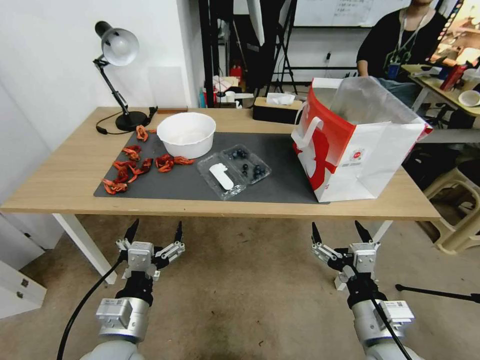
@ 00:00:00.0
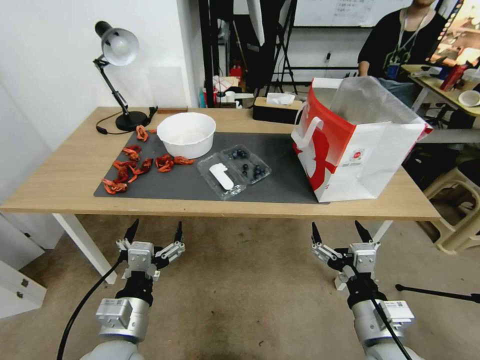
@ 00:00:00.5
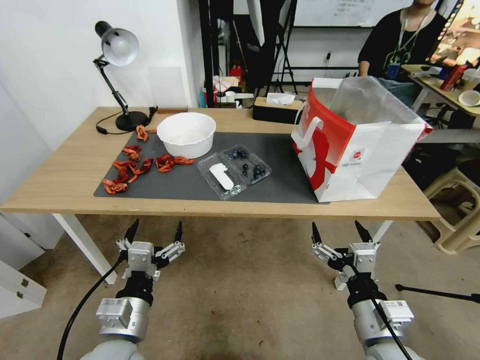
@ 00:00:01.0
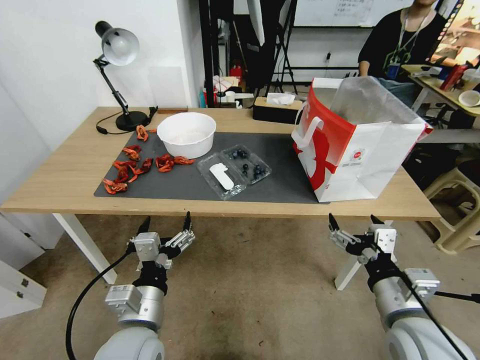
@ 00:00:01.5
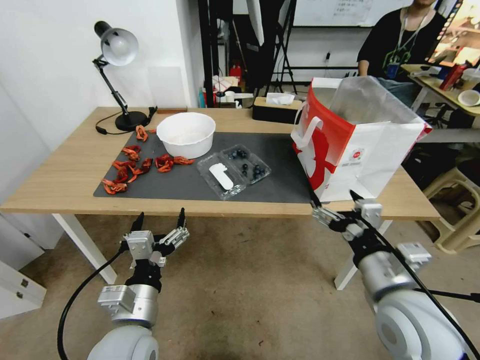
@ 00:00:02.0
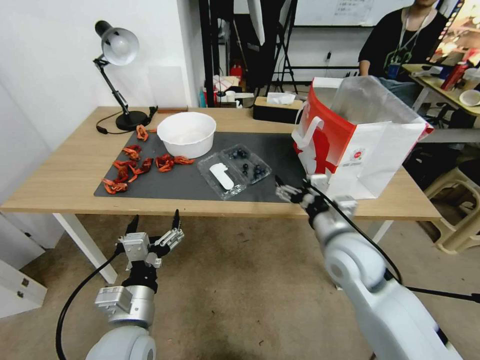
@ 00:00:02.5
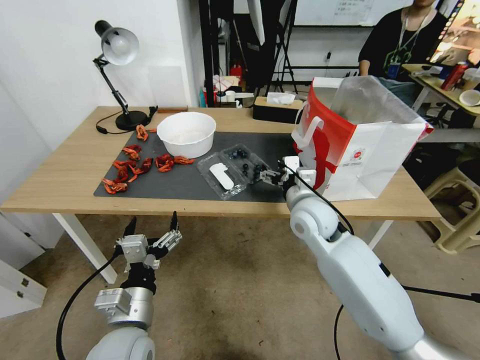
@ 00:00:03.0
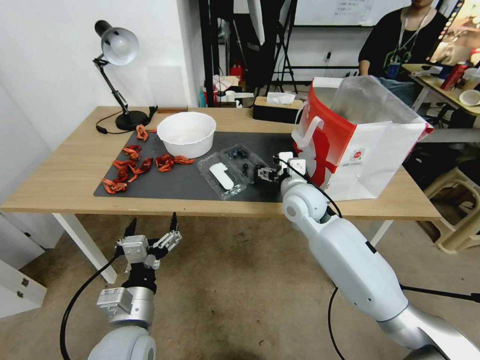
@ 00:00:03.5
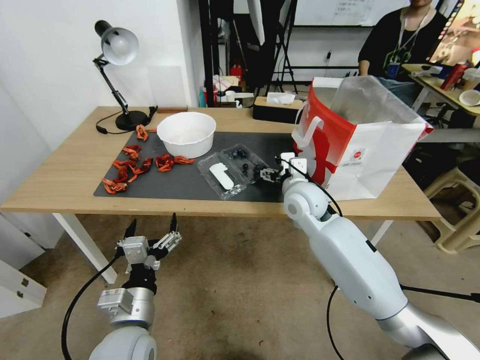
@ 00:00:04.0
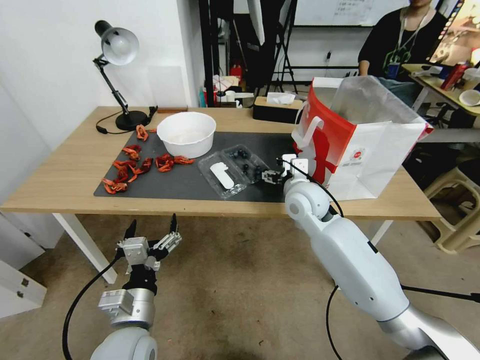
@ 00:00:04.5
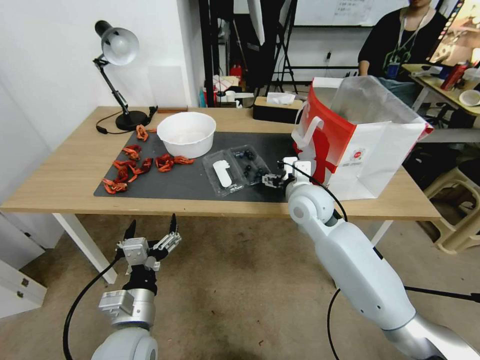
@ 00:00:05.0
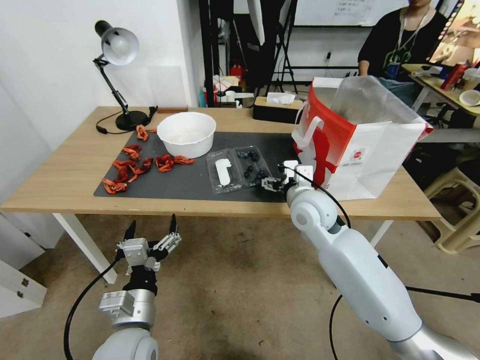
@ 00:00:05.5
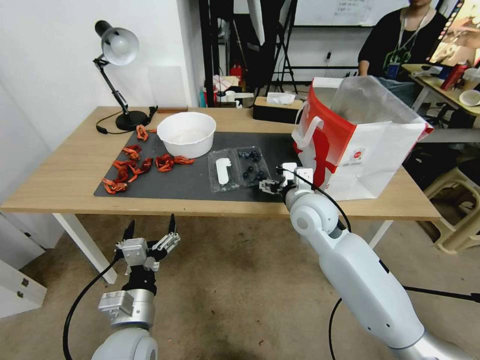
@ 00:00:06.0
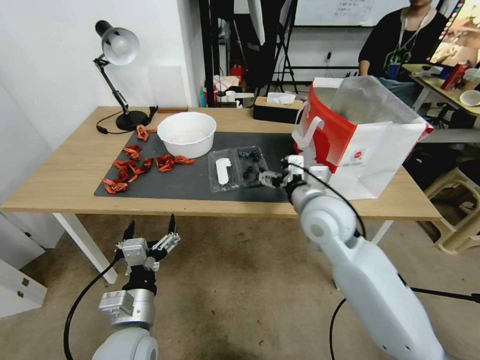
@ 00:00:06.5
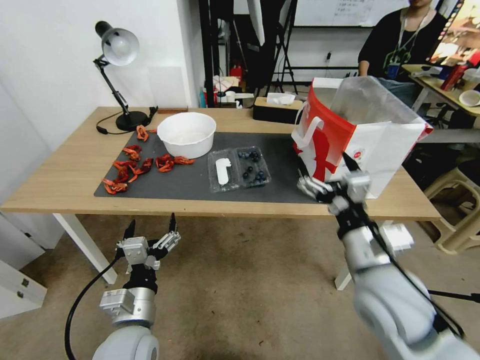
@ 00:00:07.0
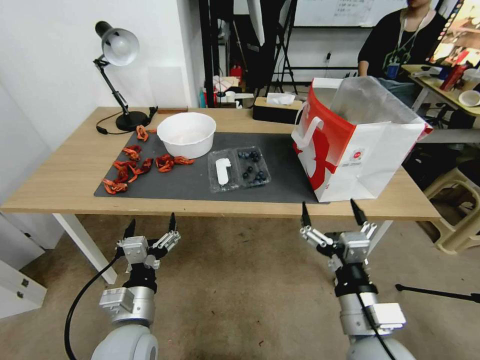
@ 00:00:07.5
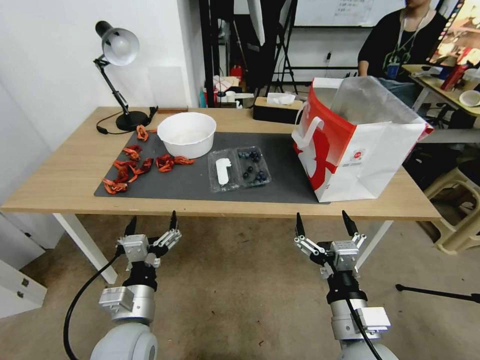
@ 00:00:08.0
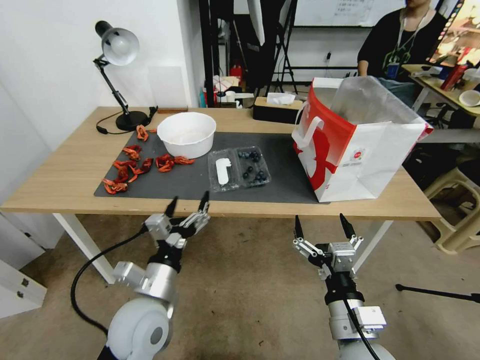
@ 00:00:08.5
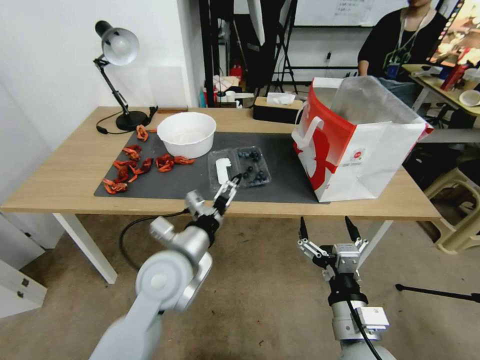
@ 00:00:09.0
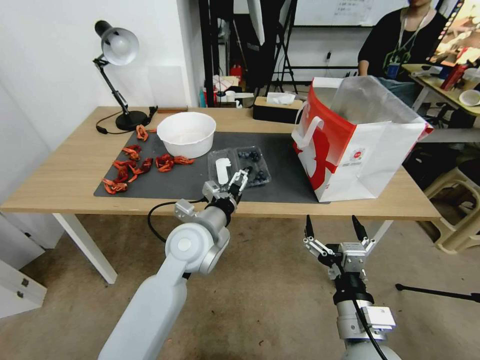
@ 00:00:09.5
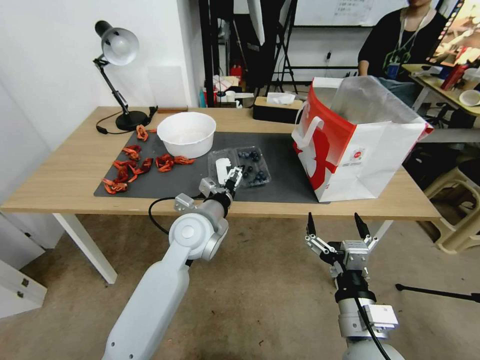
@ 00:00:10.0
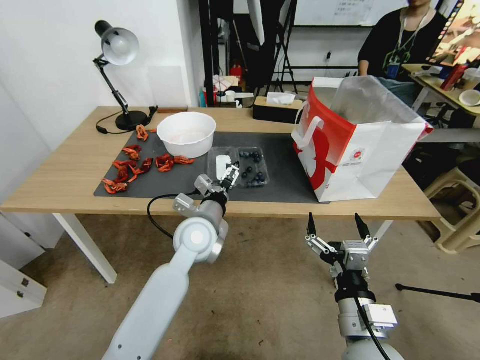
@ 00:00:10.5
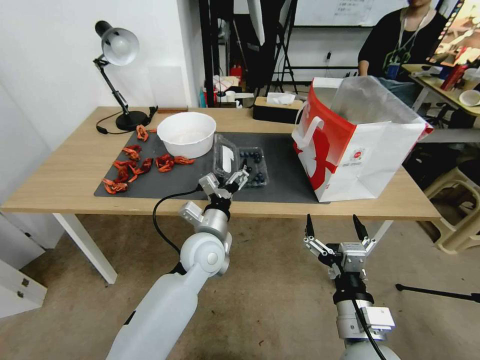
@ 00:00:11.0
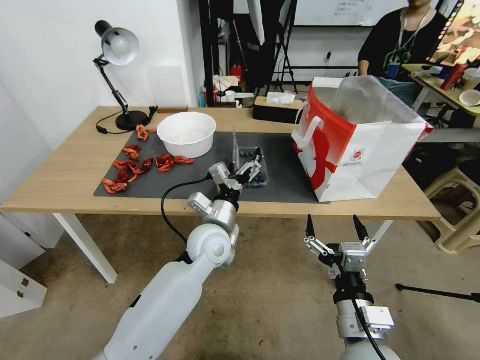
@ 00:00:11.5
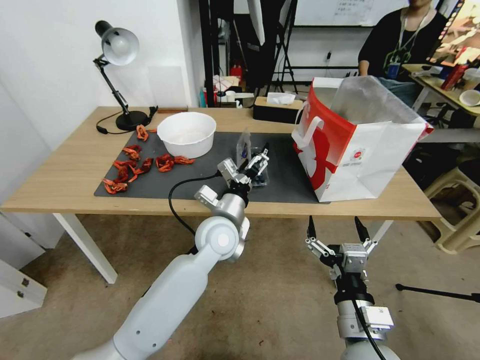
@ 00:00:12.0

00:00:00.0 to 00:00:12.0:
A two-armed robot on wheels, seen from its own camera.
Task of the whole recording: Close the takeout container lid, then place the container into the takeout bag.
00:00:02.0 to 00:00:04.0: The right gripper heads forward and to the left, covering about 25 cm.
00:00:04.0 to 00:00:06.0: The grippers make only small movements.
00:00:06.0 to 00:00:08.0: The right gripper is displaced backward by about 25 cm.
00:00:08.0 to 00:00:10.0: The left gripper heads forward and to the right, covering roughly 20 cm.
00:00:10.0 to 00:00:12.0: The left gripper ends up some 5 cm from where it was.

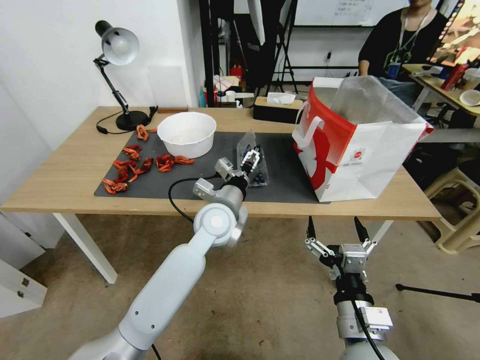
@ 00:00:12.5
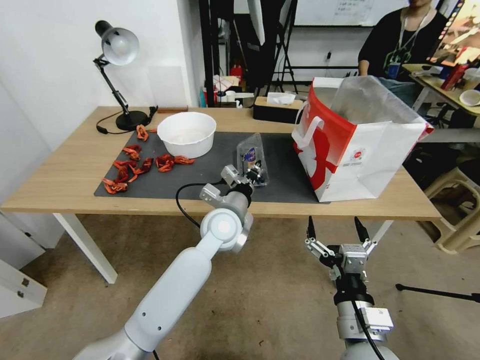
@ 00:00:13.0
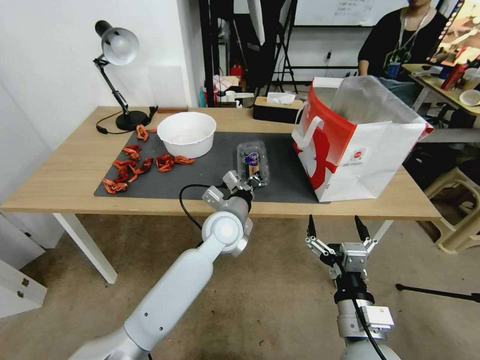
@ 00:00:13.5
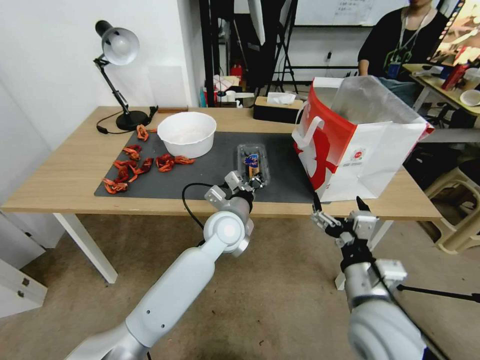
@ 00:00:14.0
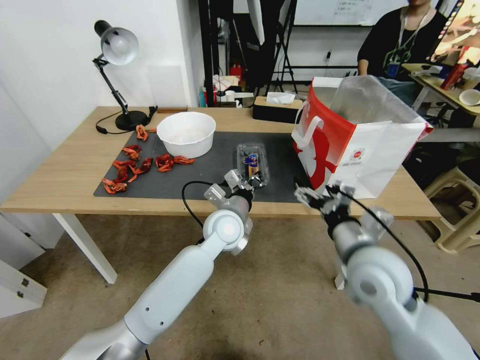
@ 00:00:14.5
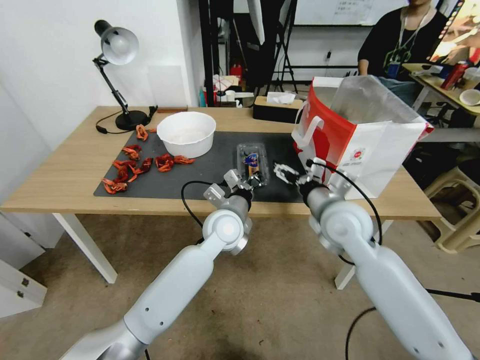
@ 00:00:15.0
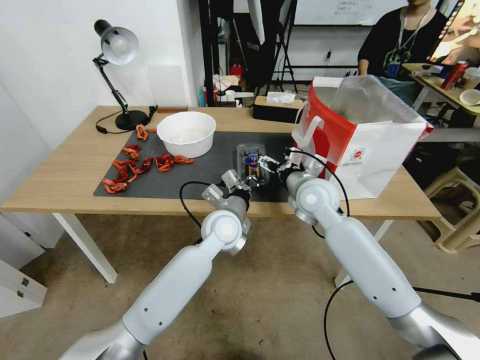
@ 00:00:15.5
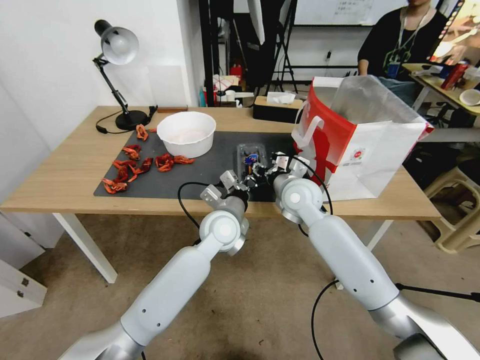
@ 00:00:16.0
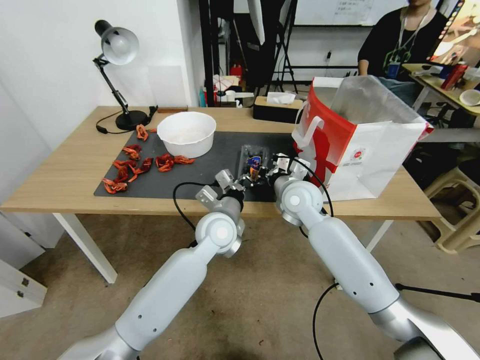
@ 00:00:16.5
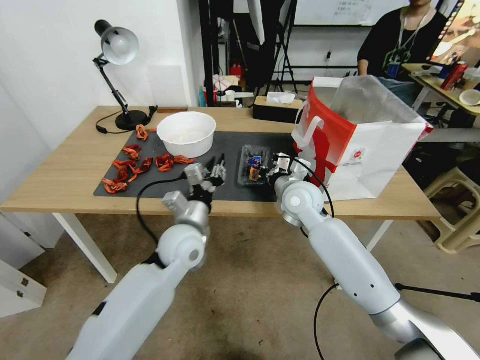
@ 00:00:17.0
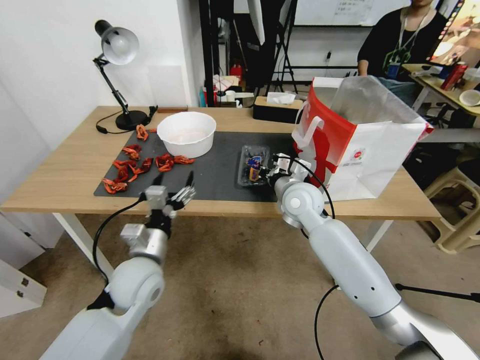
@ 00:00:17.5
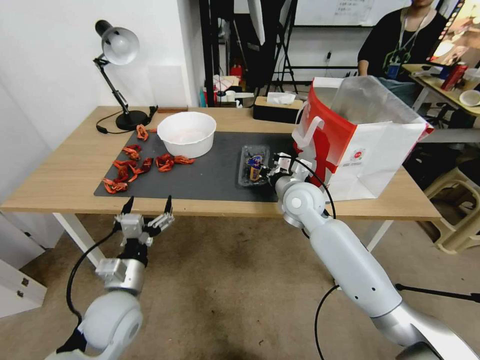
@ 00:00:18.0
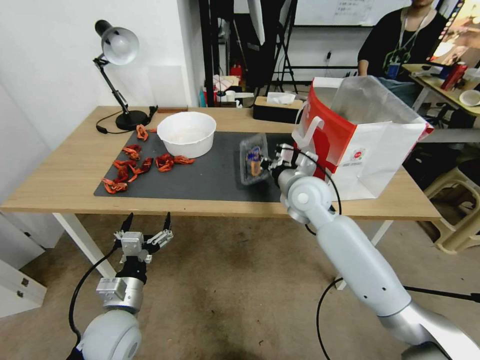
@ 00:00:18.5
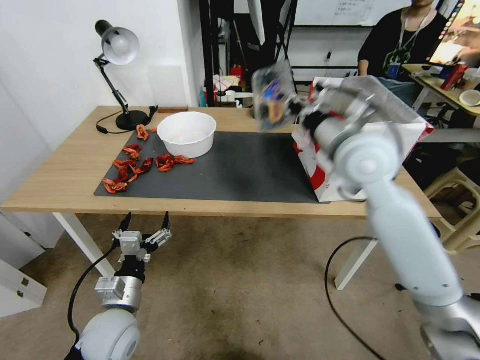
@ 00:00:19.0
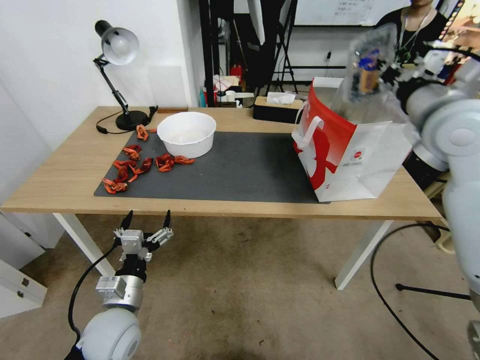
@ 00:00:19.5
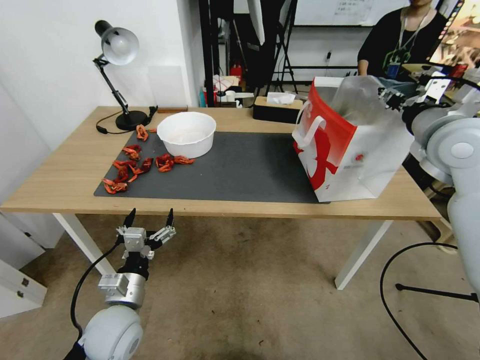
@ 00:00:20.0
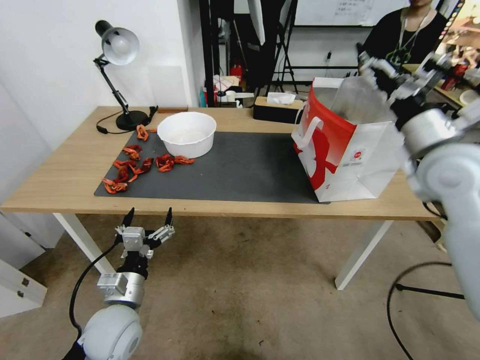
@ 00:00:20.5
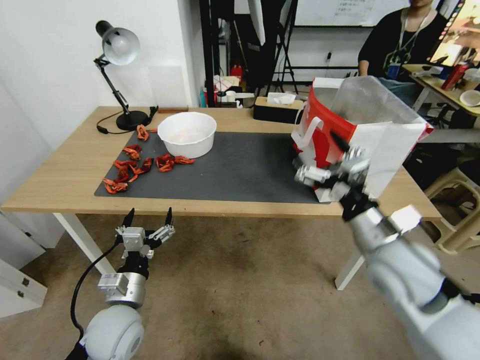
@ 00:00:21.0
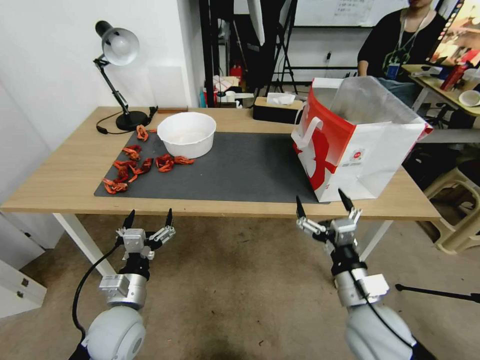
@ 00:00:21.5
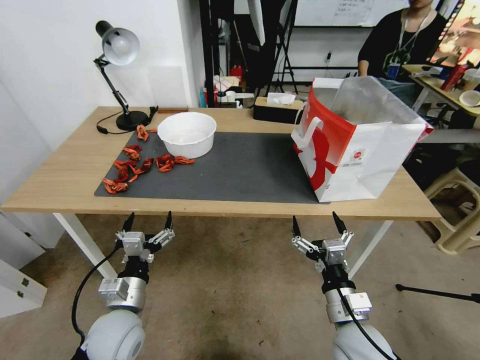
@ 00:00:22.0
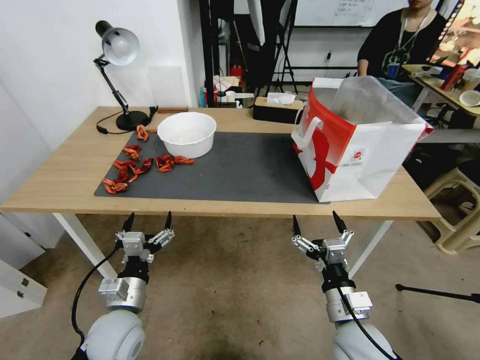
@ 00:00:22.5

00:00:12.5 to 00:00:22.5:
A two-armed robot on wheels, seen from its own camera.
Task of the whole recording: Close the takeout container lid, then place the container into the takeout bag.
00:00:12.5 to 00:00:14.5: The right gripper moves forward and upward, some 15 cm. Meanwhile the left gripper closes up.
00:00:14.5 to 00:00:16.5: The right gripper shifts approximately 20 cm forward and to the left, and closes.
00:00:16.5 to 00:00:18.5: The left gripper travels to the left and backward by approximately 25 cm, and opens up.
00:00:18.5 to 00:00:20.5: The right gripper shifts about 25 cm to the right, upward and backward, and opens.
00:00:20.5 to 00:00:22.5: The right gripper heads downward, backward and to the left, covering about 35 cm.
